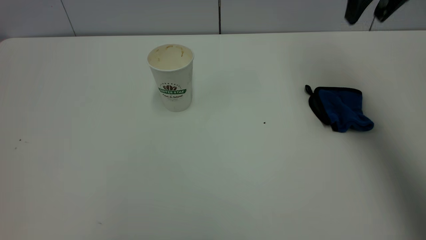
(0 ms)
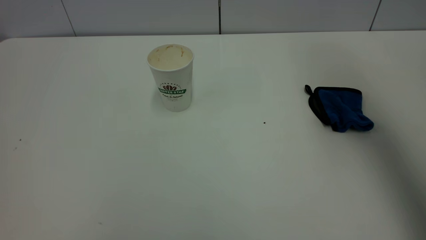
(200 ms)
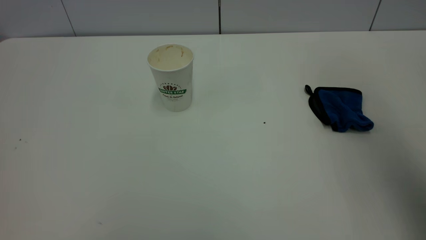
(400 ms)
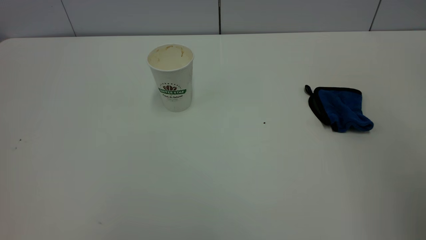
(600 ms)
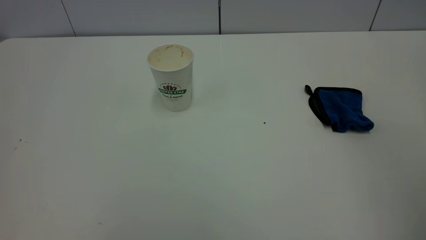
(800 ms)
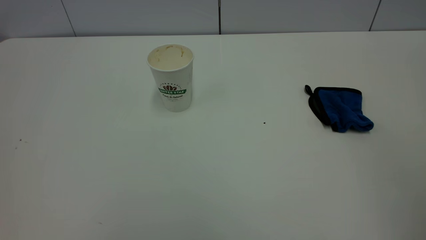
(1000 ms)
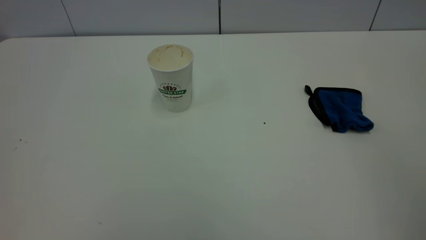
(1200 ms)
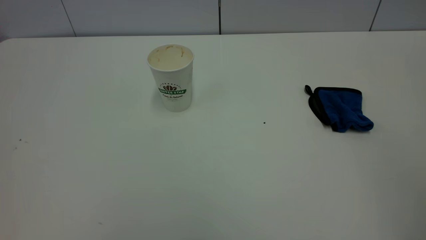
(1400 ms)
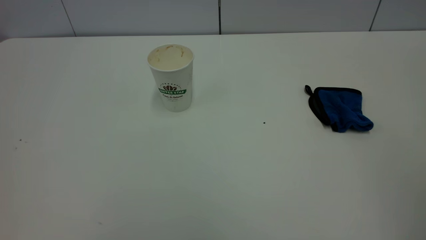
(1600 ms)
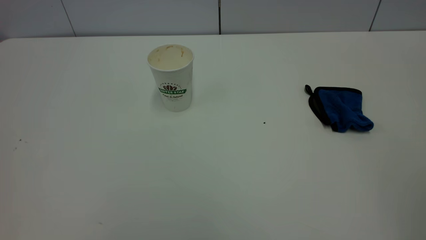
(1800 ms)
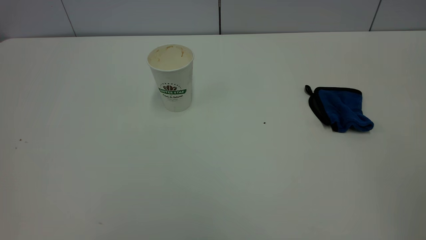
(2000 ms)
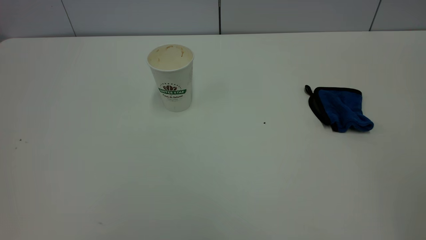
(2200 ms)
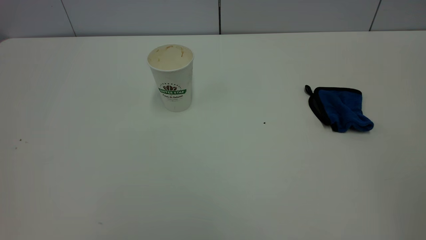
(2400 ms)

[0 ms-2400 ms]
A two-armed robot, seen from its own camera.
Task of the whole recording: the left gripper pick up the fallen cup and place it upright, the right gripper grasp the blue rag and wipe the tea stain on the table, the right gripper put the blue rag back in its original position.
0 ms to 1200 ms: The right gripper heads backward, covering about 35 cm.
